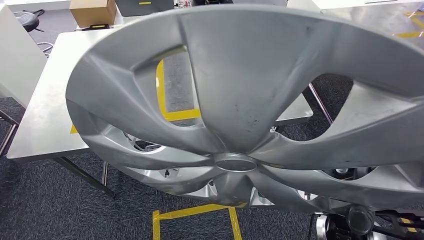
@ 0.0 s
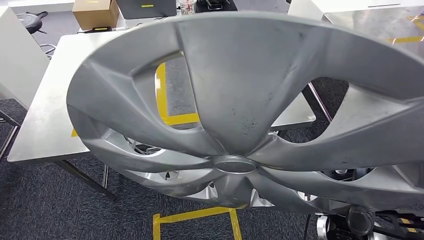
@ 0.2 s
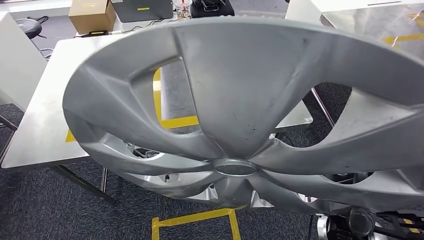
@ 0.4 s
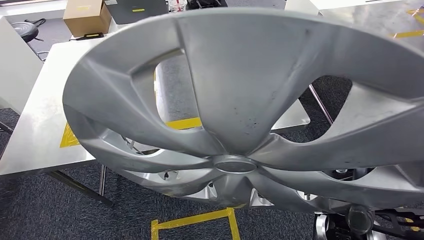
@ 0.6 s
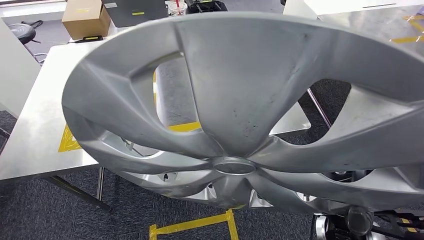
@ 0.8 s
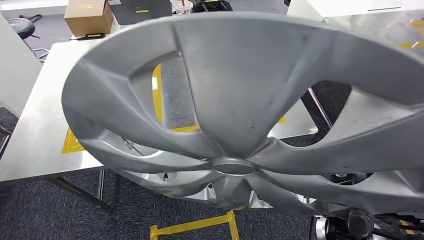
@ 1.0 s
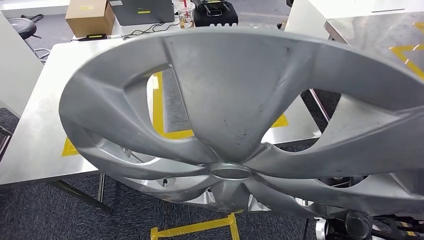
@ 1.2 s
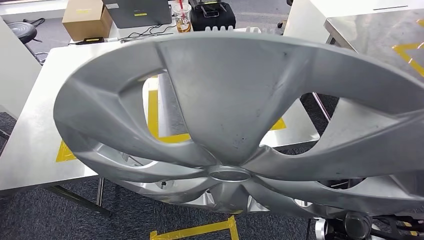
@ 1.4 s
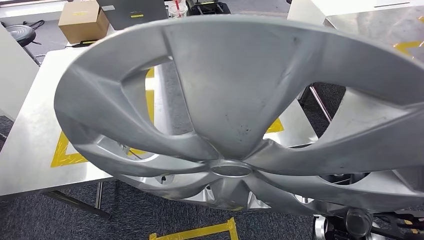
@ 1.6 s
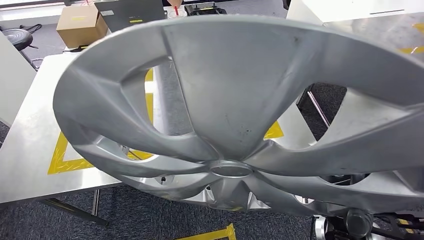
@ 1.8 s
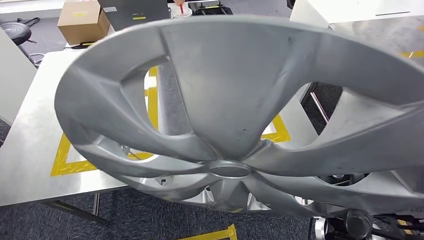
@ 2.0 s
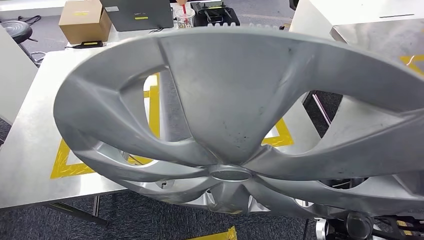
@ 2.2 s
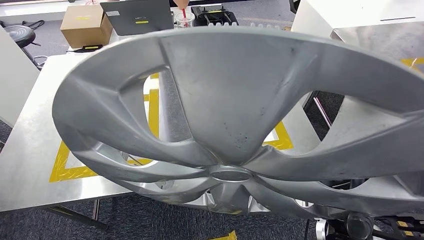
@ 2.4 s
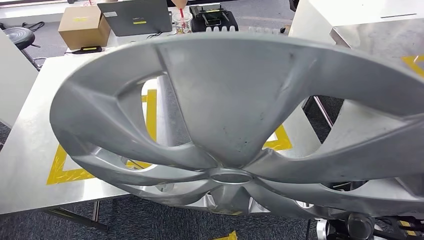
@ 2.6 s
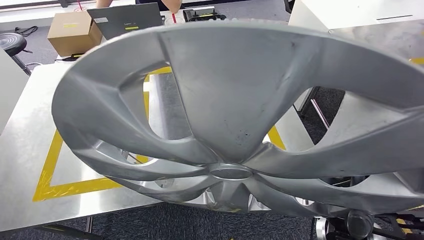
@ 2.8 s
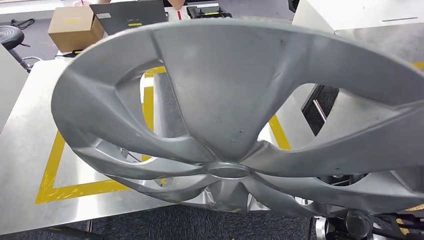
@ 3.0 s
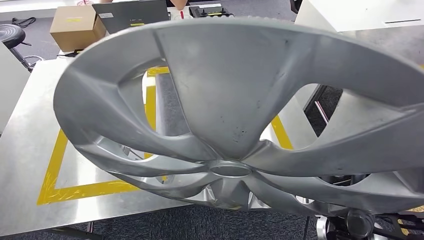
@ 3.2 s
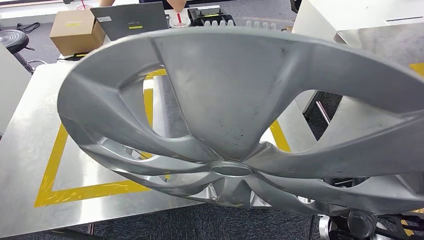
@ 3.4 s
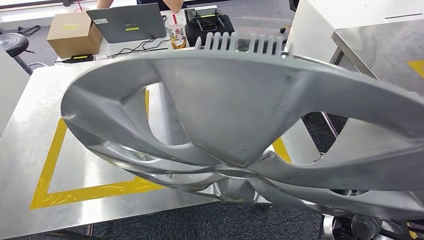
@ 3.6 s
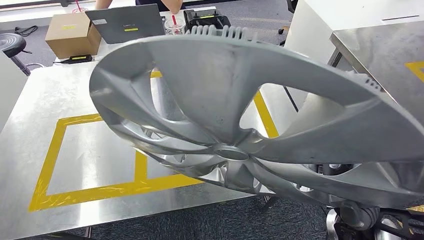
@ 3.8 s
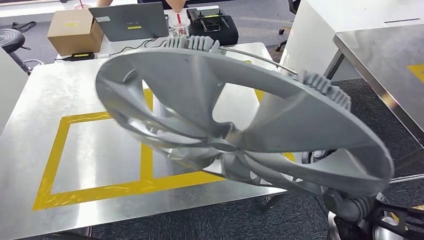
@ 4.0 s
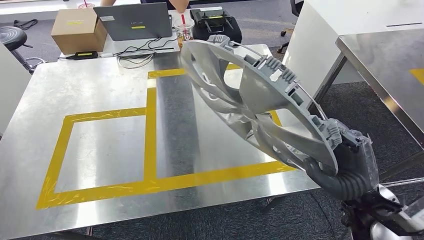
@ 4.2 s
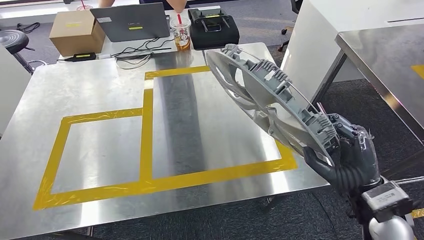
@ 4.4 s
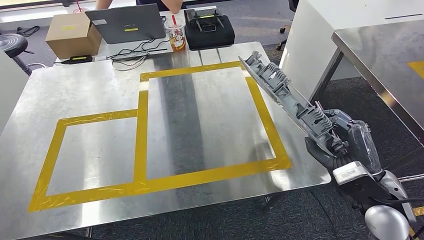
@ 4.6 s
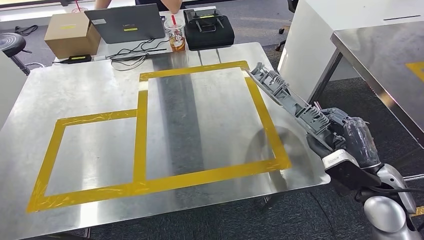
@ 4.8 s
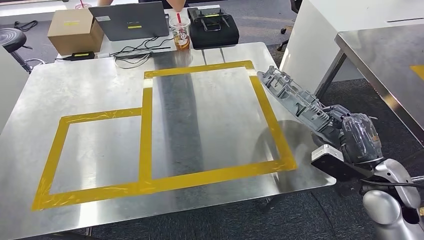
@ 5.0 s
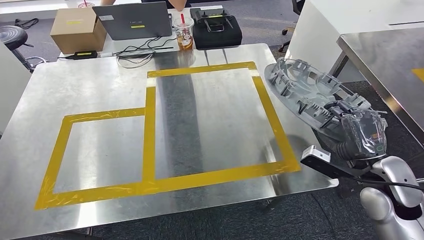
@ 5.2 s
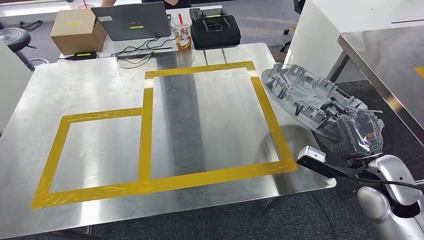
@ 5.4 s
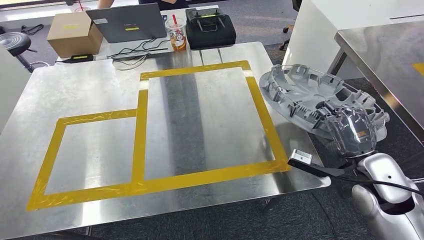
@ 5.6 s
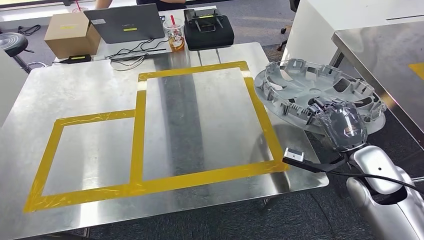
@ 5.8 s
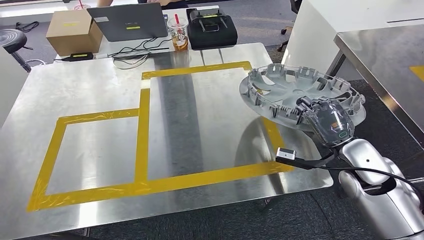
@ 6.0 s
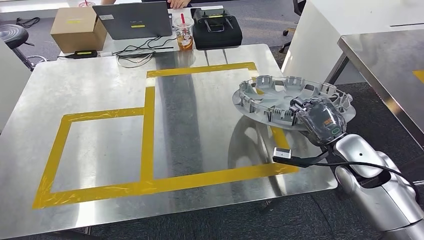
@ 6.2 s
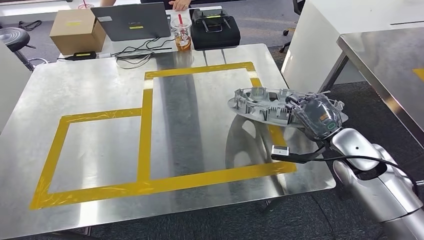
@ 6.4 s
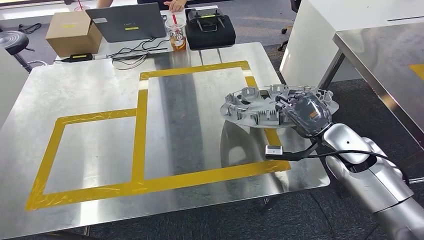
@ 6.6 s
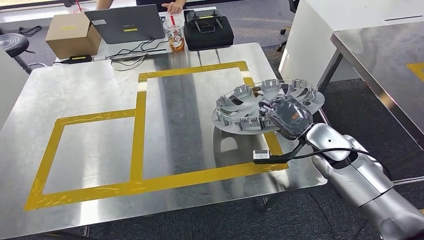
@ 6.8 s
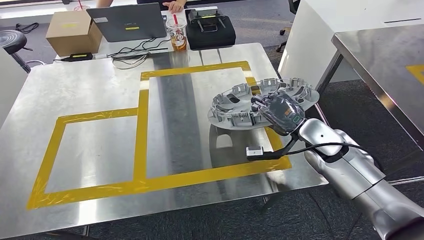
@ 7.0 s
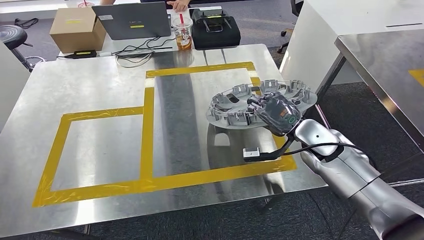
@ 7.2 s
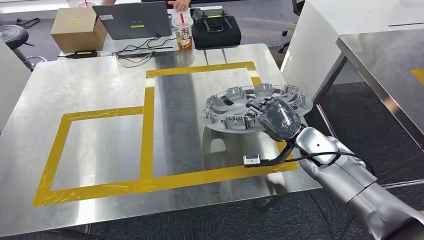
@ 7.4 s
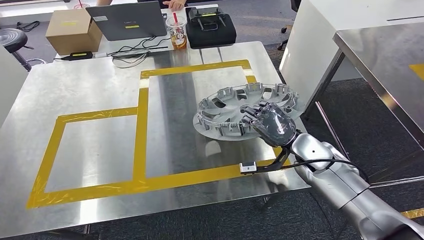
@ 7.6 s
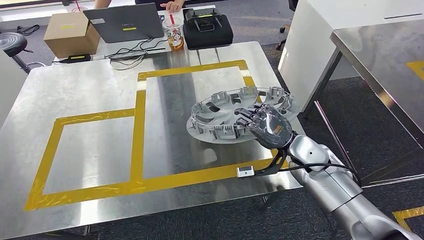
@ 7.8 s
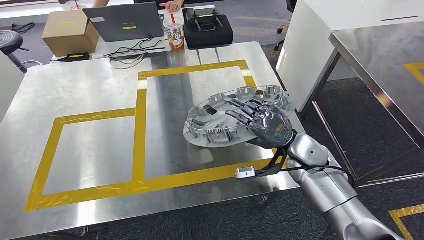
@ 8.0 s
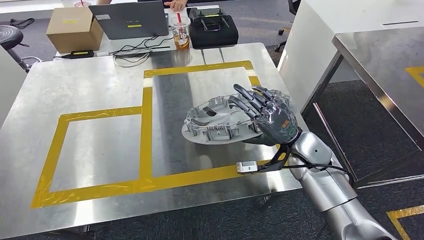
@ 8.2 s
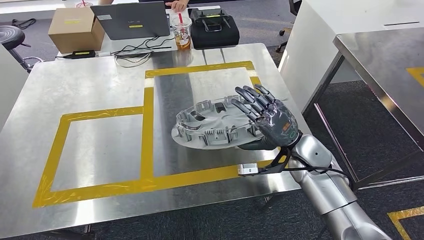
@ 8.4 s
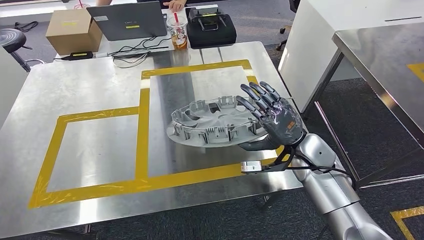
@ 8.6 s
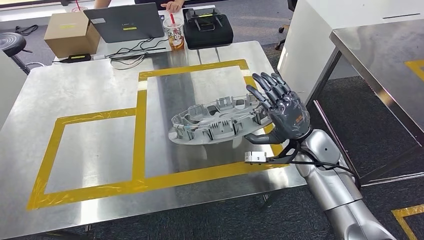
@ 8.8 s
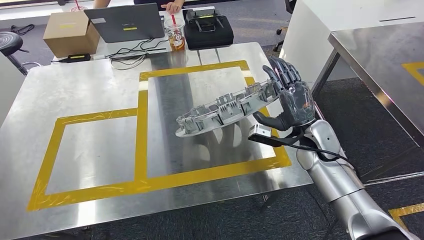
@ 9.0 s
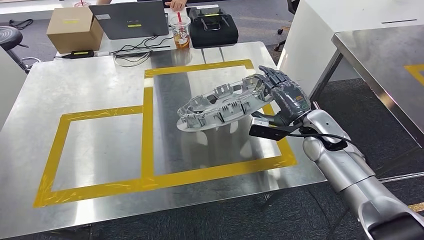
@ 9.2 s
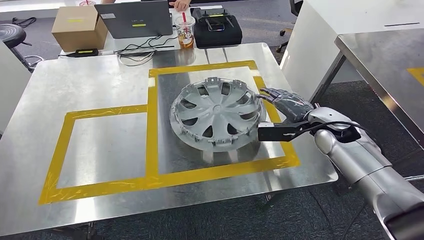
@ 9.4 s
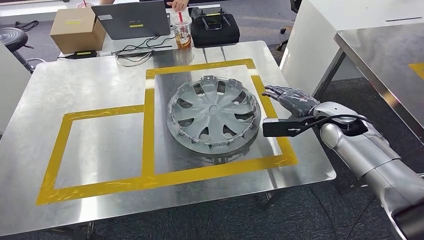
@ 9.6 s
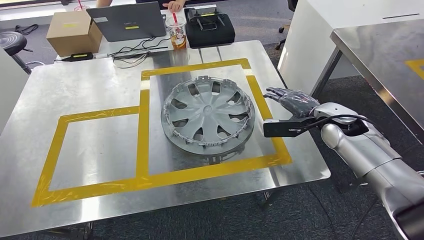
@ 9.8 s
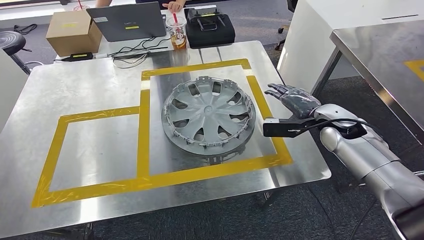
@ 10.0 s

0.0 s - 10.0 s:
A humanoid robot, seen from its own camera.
Step, 0.0 s - 9.6 s: Insert the small parts into the corresponding slots on the workbench.

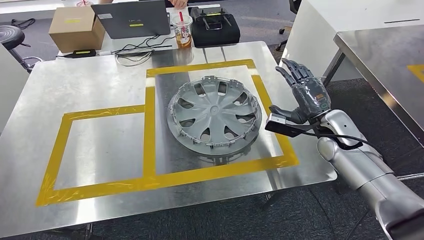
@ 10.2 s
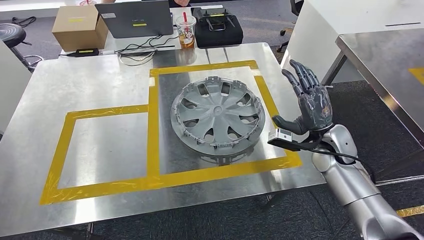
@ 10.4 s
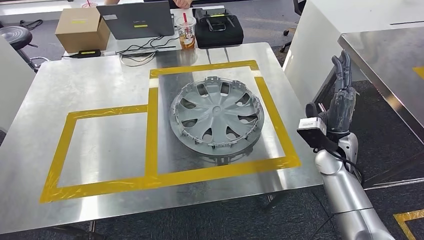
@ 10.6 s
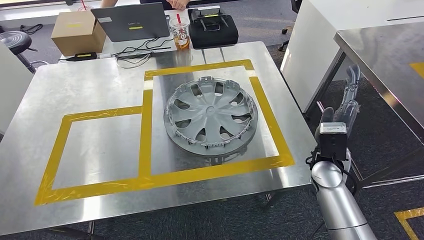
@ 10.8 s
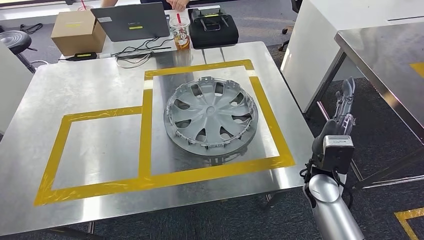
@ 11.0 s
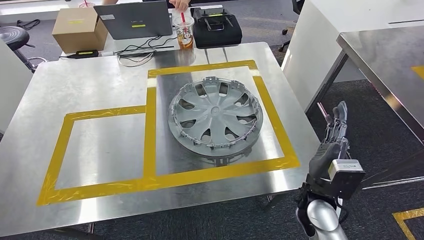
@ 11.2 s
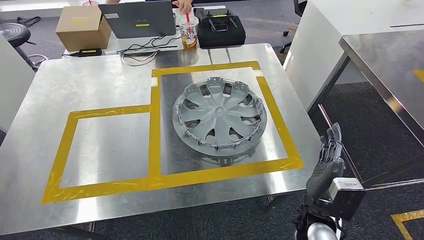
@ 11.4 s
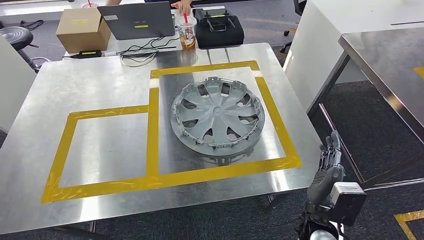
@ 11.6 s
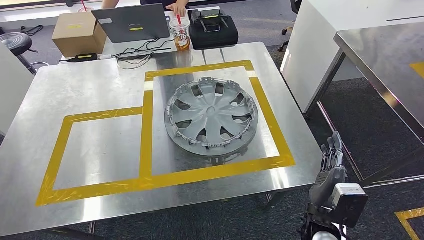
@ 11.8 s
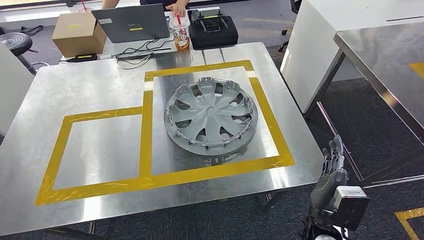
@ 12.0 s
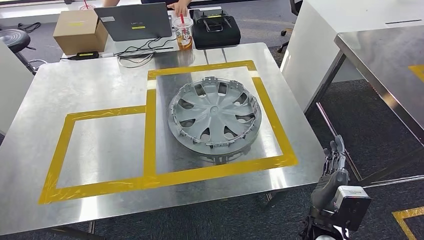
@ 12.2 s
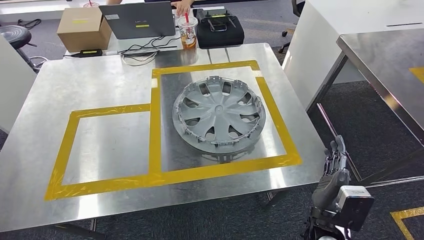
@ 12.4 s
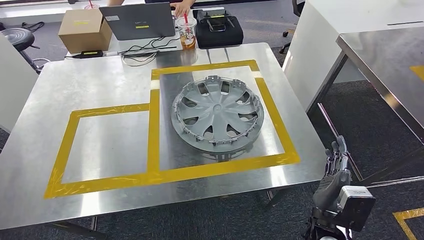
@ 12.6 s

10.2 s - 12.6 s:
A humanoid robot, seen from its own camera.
Step, 10.2 s - 12.6 s: Return to the initial position at the workbench.
11.4 s - 12.6 s: There are only small adjustments of the hands.
